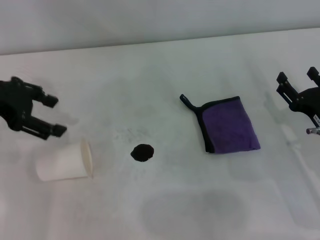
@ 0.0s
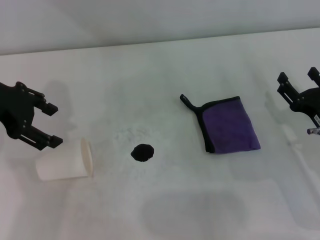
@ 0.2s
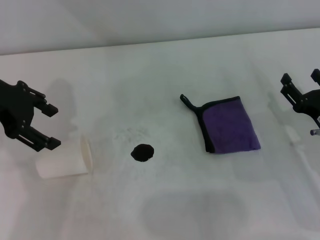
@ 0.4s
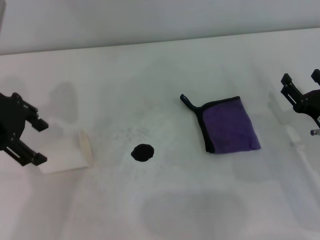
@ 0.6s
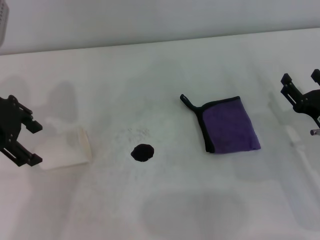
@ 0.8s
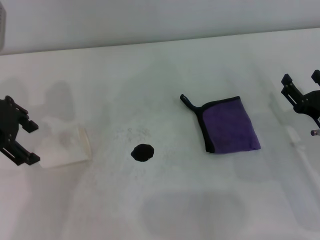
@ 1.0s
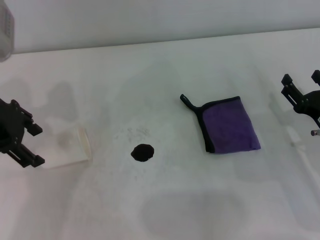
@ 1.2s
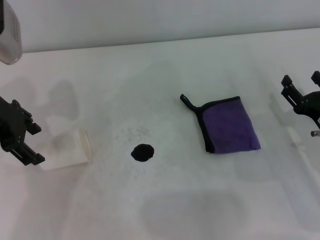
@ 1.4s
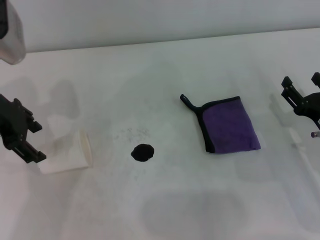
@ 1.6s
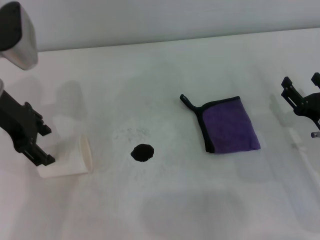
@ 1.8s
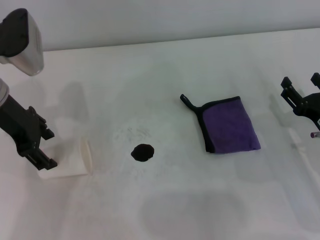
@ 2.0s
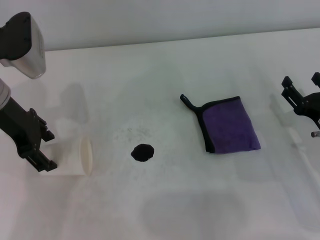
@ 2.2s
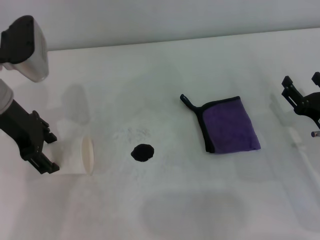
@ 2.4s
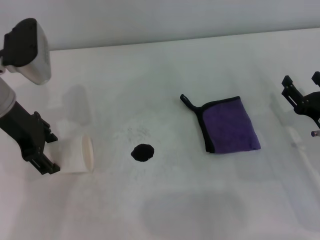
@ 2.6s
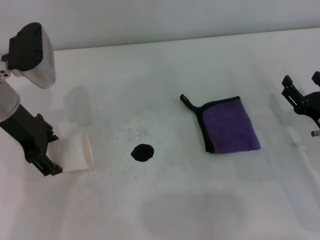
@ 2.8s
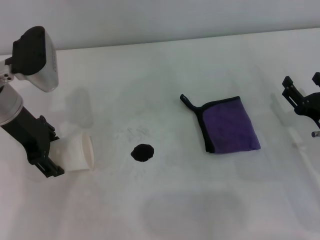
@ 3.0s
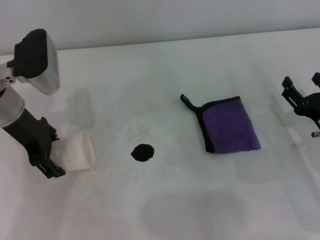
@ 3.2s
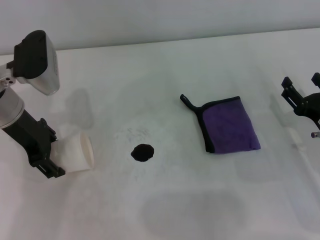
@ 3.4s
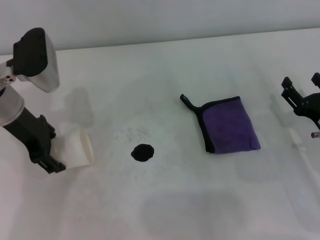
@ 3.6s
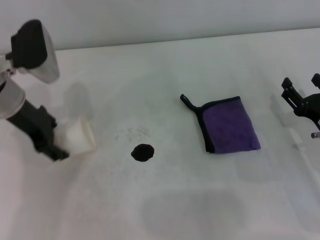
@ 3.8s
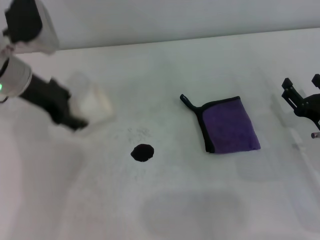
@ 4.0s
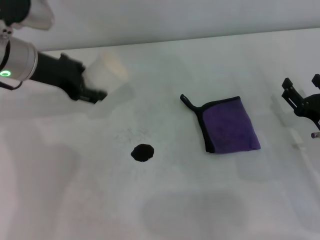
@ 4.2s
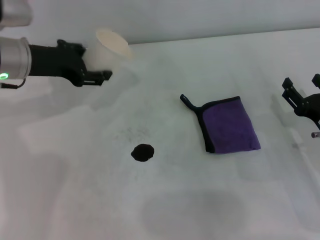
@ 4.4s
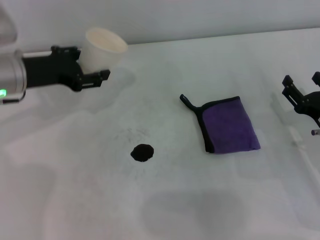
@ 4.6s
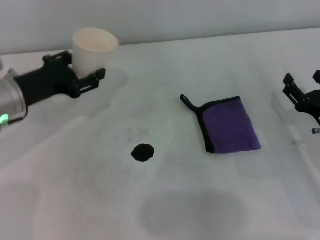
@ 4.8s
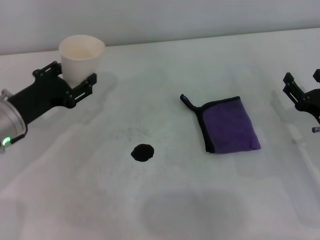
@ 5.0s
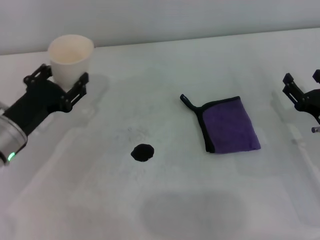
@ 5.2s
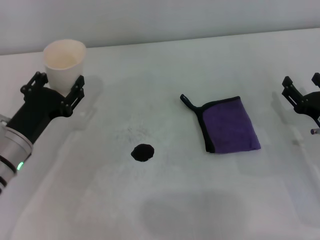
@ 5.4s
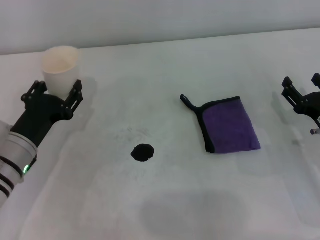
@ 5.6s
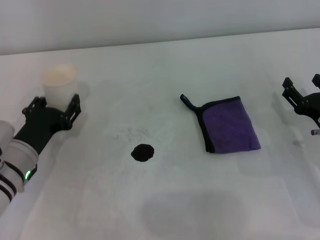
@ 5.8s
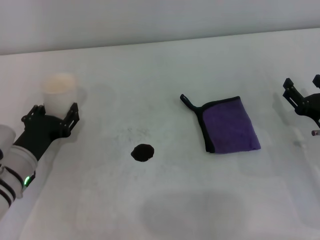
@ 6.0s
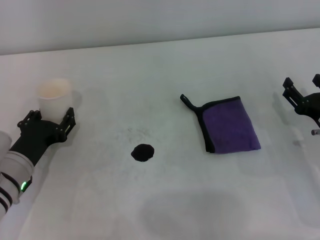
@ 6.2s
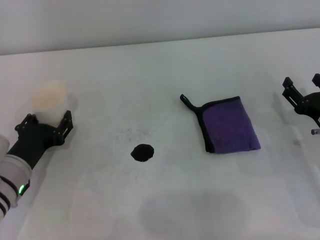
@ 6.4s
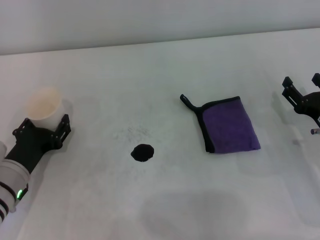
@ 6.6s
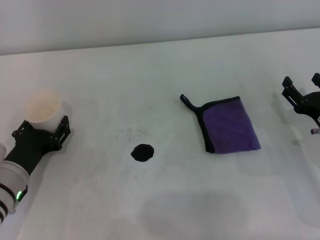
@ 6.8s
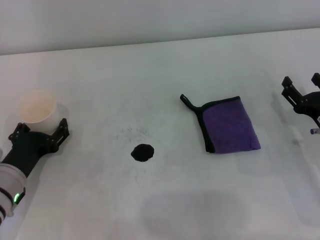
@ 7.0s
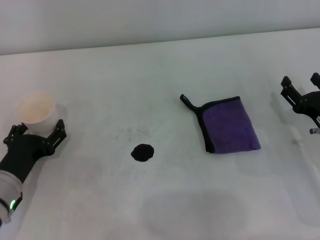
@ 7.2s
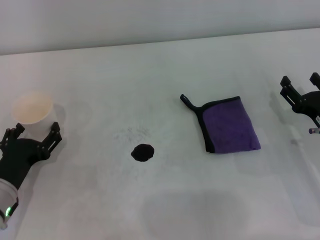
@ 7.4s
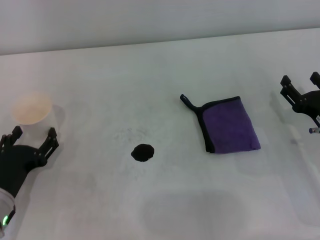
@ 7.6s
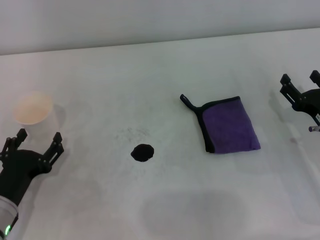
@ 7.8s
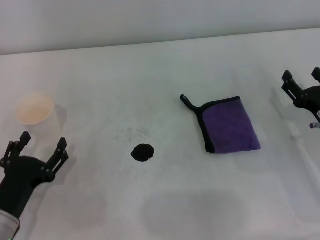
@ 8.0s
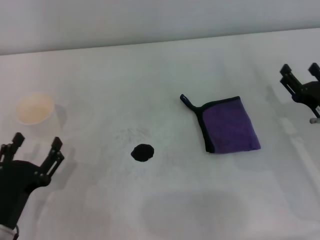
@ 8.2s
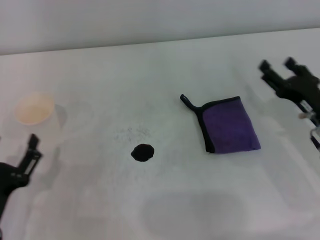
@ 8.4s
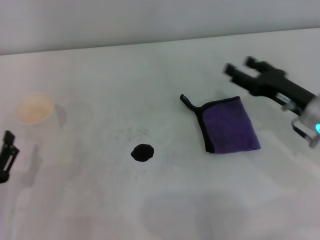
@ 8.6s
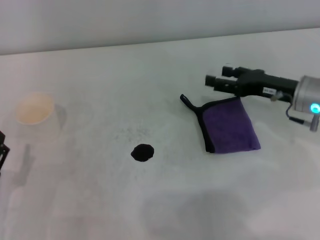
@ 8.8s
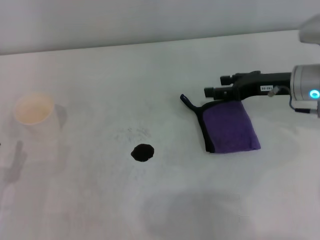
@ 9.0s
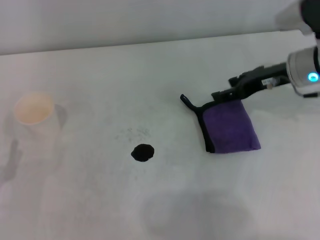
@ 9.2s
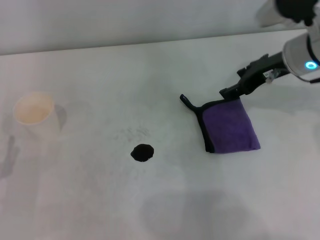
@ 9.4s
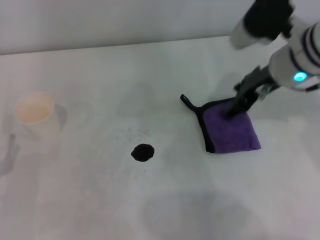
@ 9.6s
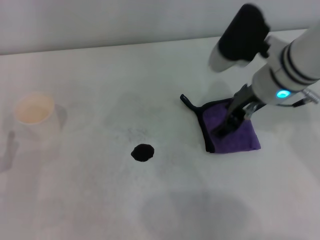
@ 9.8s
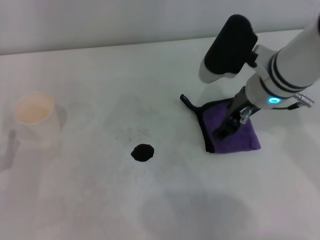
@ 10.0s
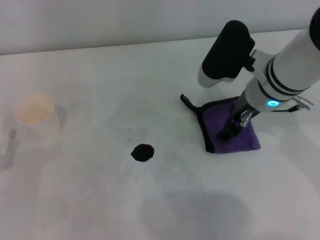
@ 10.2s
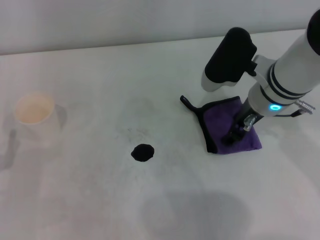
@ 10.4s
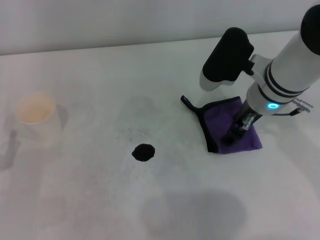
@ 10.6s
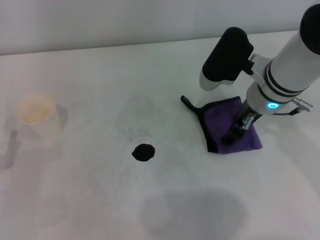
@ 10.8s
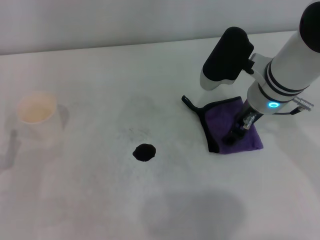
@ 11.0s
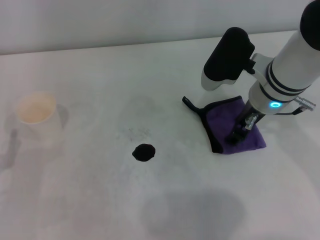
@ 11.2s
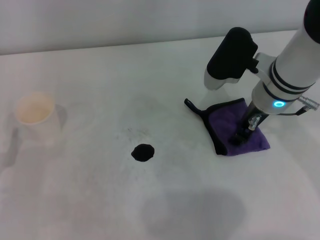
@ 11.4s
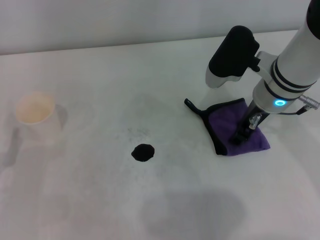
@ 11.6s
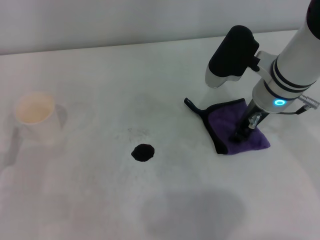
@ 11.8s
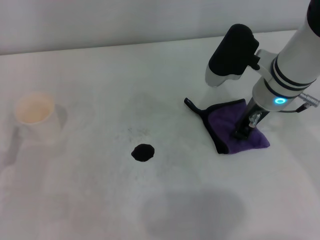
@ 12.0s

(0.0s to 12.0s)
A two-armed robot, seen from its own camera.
Step, 0.0s - 3.4s: Grasp the paper cup with the left gripper.
Step, 3.6s - 6.8s: Stand the paper cup upright with the left gripper.
1.6s - 3.0s: The left gripper ends up approximately 5 cm from where it was.
3.0s - 4.4s: The left gripper closes its fingers.
4.4s - 6.0s: The left gripper moves downward and backward, roughly 20 cm.
6.0s - 7.6s: The left gripper is displaced backward by about 5 cm, and opens its fingers.
7.6s - 9.0s: The right gripper goes roughly 15 cm forward and upward. The left gripper shifts roughly 5 cm backward.
9.0s - 10.4s: The right gripper moves to the left, approximately 10 cm.
10.4s - 12.0s: The right gripper closes.

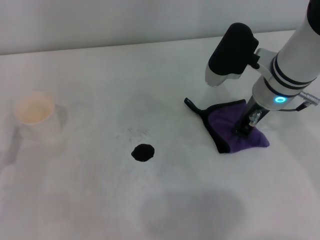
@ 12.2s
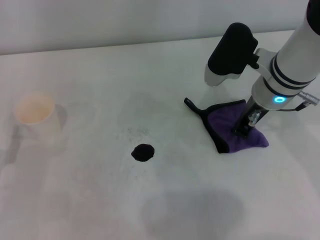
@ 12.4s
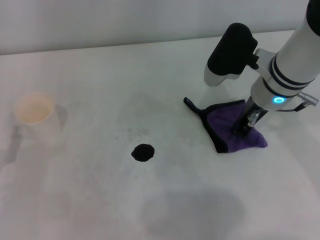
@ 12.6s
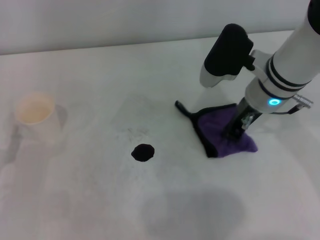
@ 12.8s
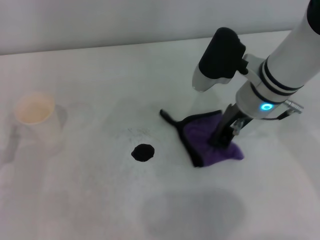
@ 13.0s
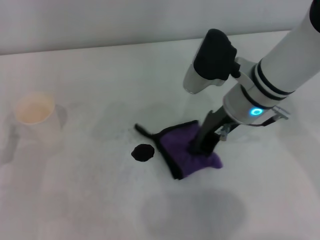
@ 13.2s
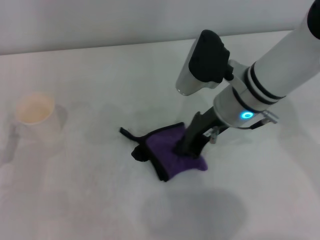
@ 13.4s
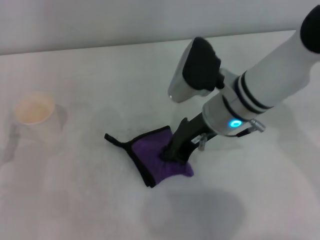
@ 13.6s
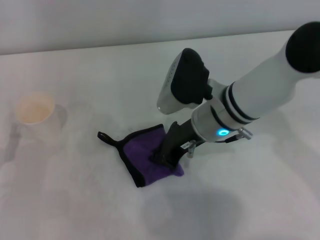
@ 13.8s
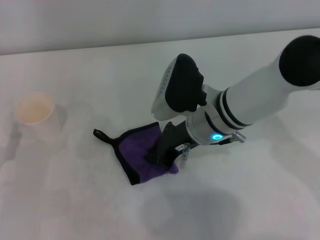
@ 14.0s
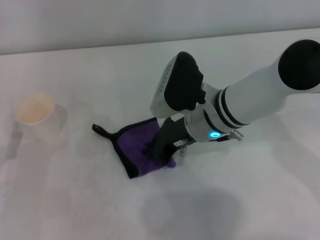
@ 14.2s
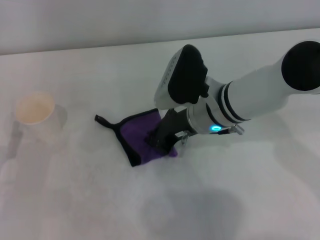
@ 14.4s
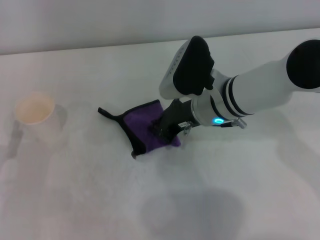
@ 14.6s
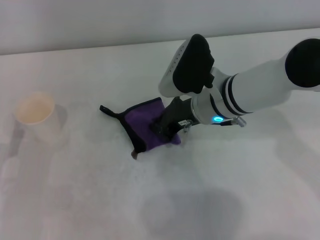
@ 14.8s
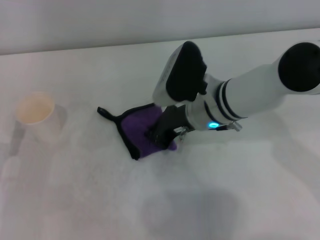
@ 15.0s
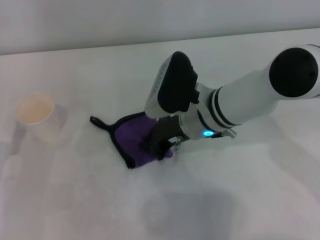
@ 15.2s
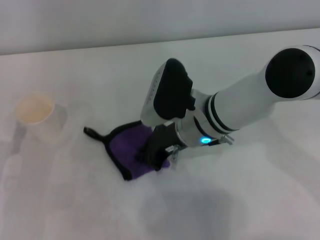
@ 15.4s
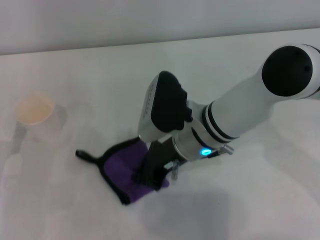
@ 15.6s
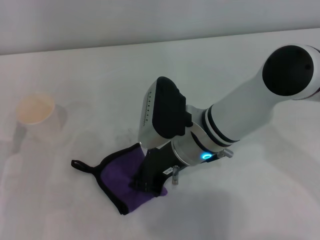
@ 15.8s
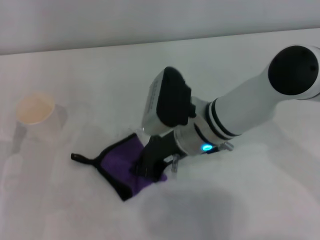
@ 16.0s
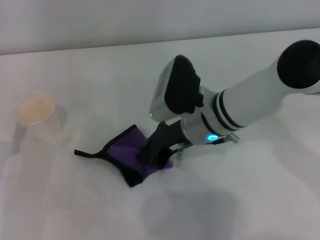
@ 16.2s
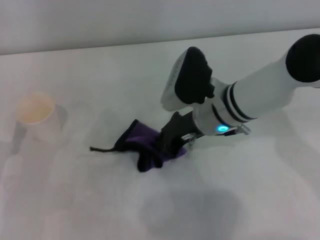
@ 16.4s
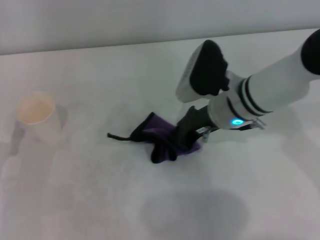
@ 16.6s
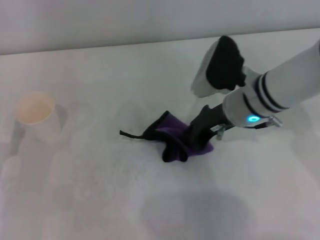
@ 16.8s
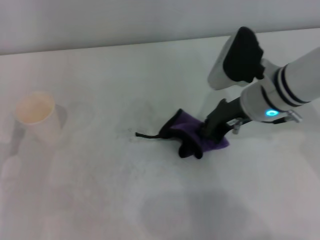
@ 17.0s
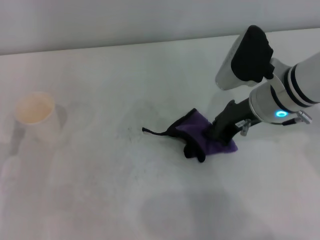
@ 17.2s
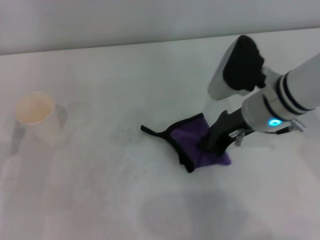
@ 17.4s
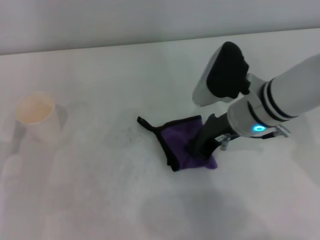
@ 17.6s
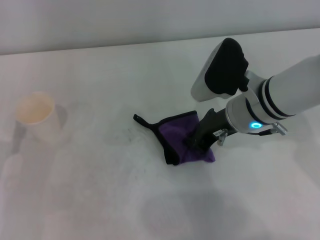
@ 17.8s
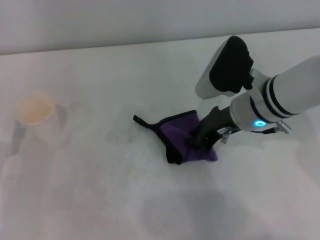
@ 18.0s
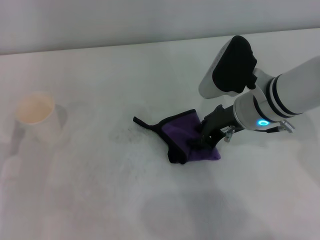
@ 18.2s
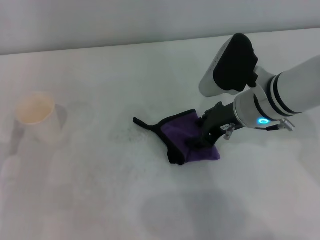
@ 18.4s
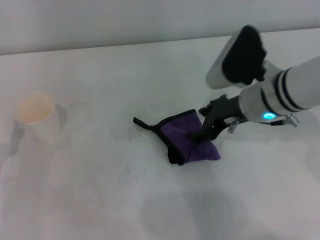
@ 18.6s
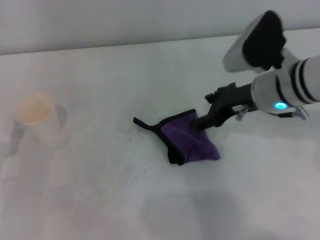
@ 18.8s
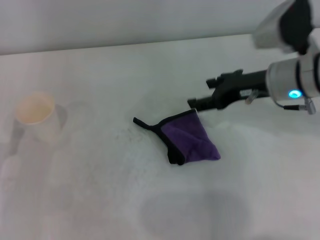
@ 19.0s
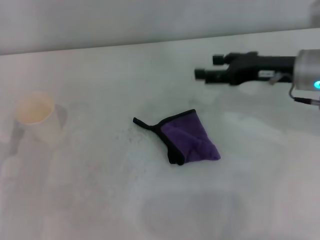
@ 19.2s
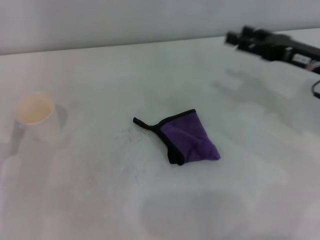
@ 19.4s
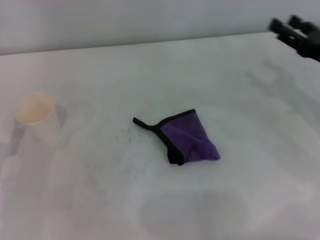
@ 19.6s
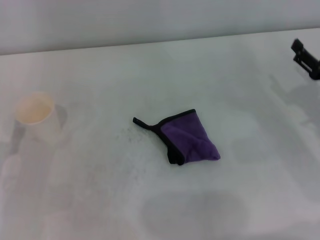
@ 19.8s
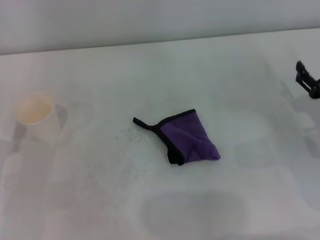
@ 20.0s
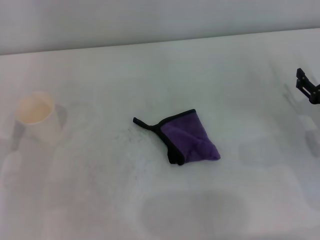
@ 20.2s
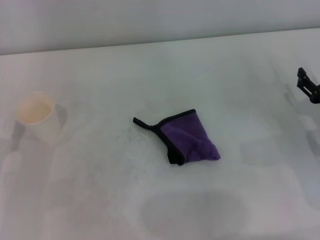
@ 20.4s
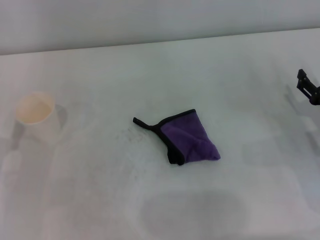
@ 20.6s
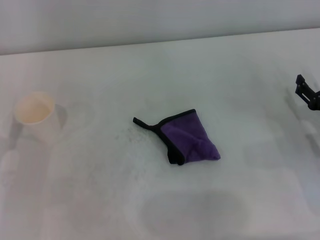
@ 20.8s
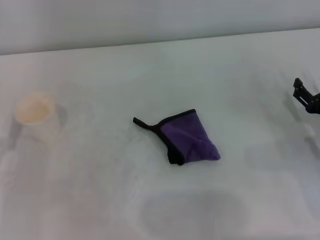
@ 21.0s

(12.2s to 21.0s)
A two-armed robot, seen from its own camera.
Step, 12.6s - 17.2s: Wipe the stains off the table with the right gripper.
Step, 17.4s - 18.0s: Place the rag on the table with the right gripper.
12.2s - 13.6s: The right gripper moves to the left, roughly 5 cm.
13.6s - 16.6s: The grippers make only small movements.
16.6s - 18.0s: The grippers stay close to where they were, moving slightly.
18.0s - 19.6s: The right gripper shifts some 15 cm to the right, and opens its fingers.
19.6s - 21.0s: The right gripper heads downward, covering some 10 cm.

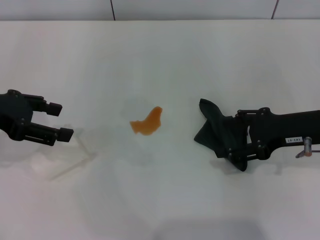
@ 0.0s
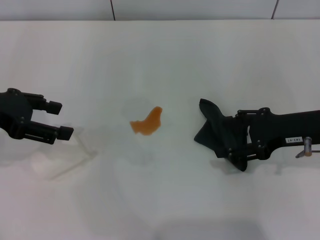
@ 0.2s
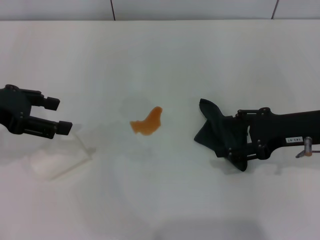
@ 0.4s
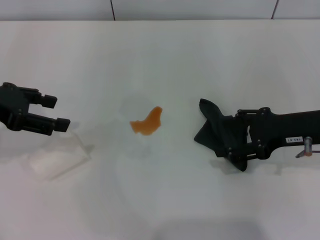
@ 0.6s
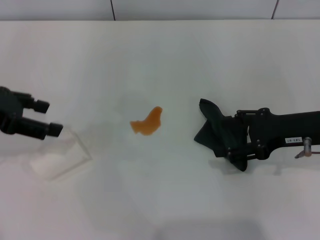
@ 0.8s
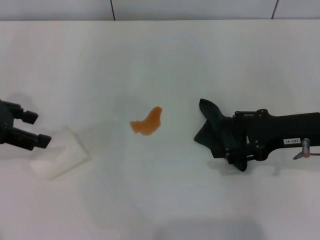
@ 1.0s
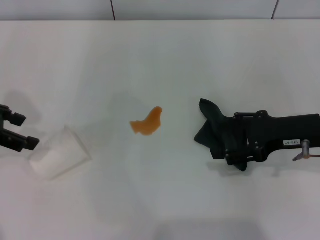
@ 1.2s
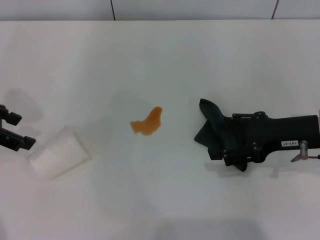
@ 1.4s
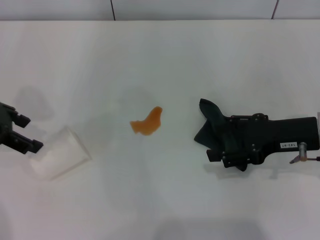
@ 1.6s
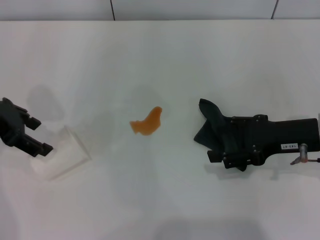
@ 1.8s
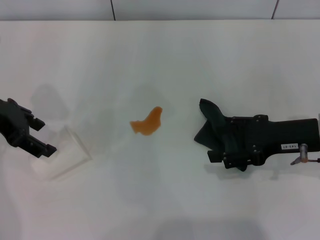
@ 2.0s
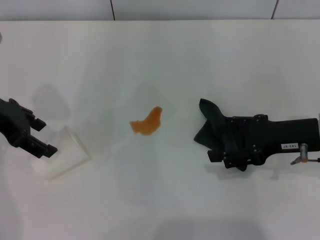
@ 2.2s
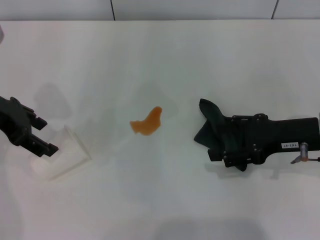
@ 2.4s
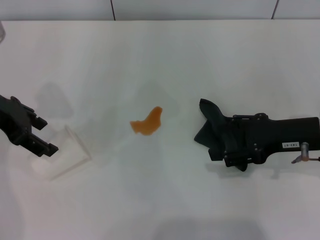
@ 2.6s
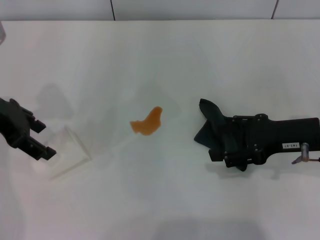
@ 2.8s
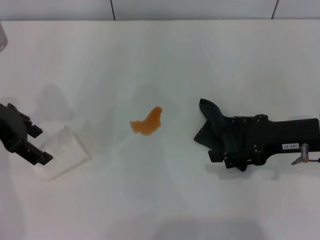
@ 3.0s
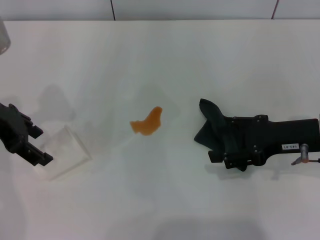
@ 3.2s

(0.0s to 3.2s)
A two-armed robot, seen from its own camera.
1.6s - 3.2s: The grippers move only a little.
